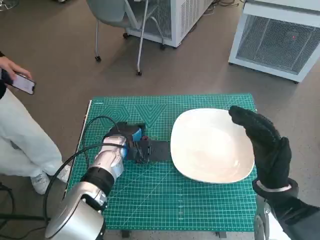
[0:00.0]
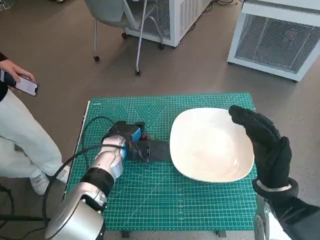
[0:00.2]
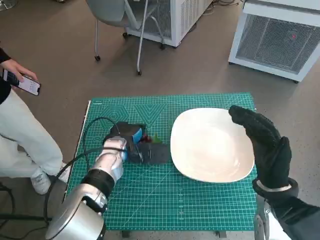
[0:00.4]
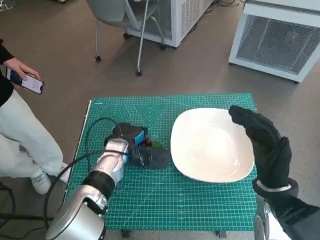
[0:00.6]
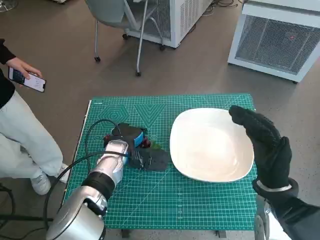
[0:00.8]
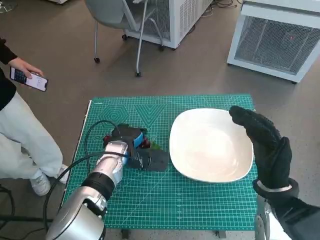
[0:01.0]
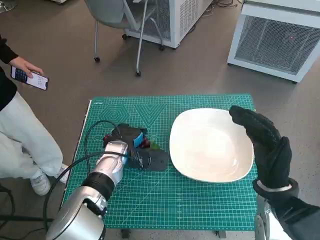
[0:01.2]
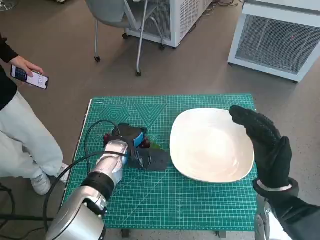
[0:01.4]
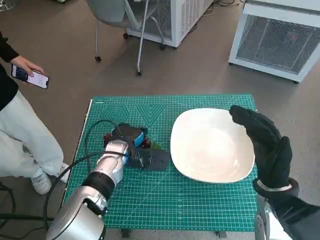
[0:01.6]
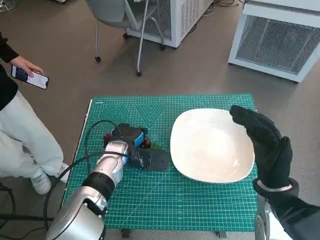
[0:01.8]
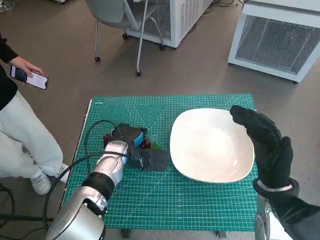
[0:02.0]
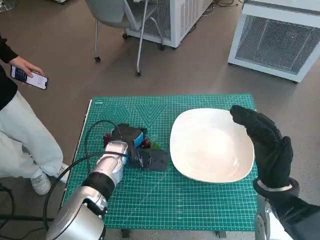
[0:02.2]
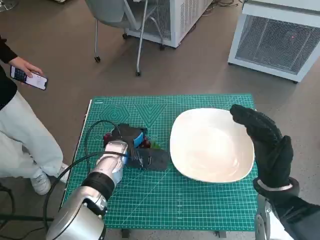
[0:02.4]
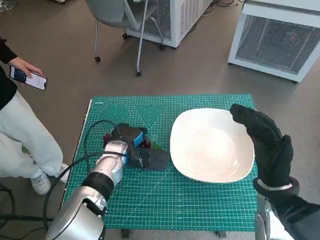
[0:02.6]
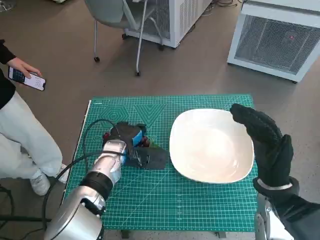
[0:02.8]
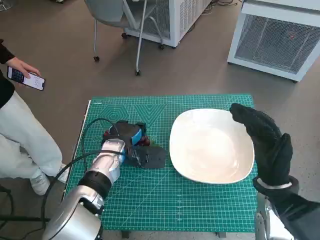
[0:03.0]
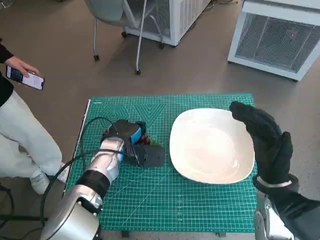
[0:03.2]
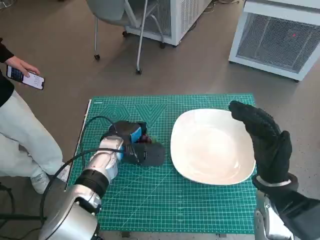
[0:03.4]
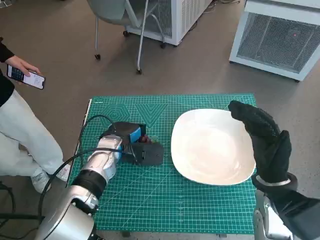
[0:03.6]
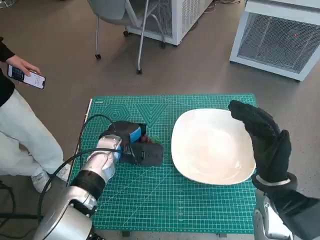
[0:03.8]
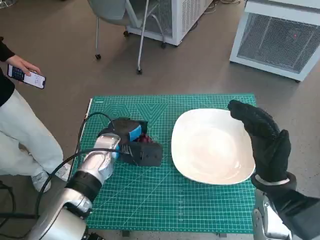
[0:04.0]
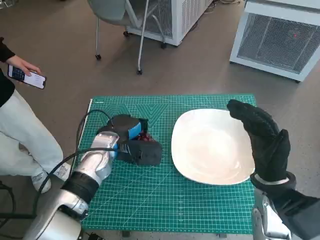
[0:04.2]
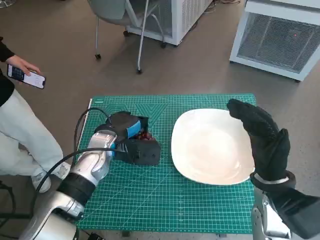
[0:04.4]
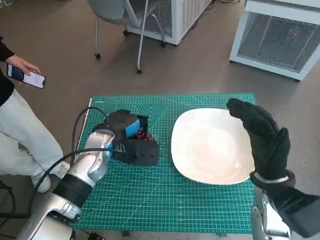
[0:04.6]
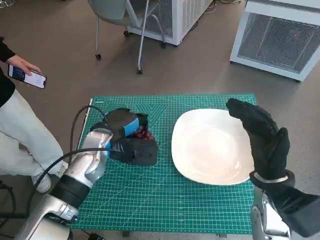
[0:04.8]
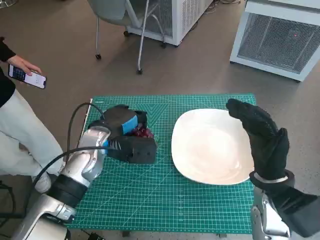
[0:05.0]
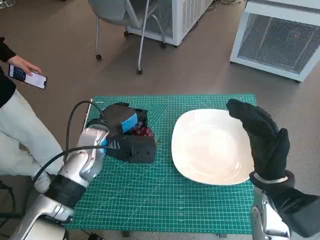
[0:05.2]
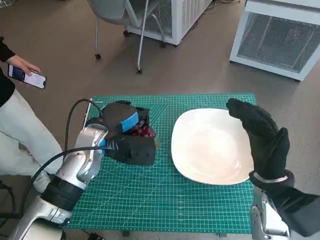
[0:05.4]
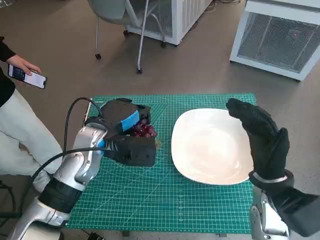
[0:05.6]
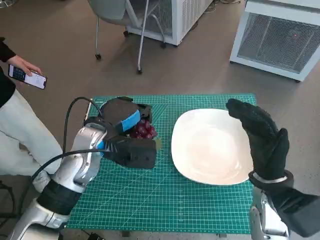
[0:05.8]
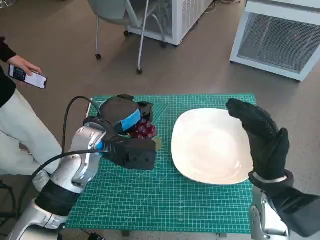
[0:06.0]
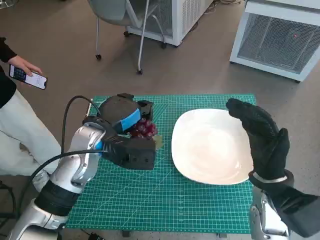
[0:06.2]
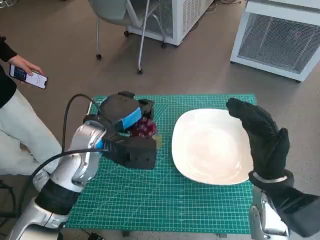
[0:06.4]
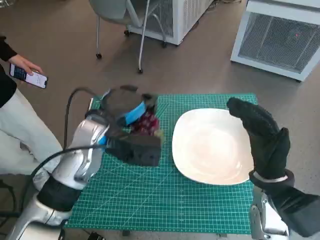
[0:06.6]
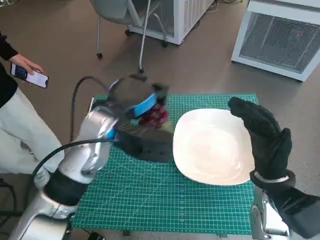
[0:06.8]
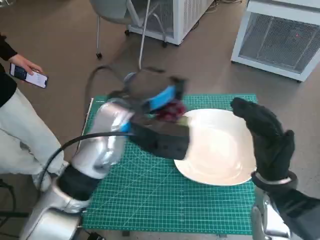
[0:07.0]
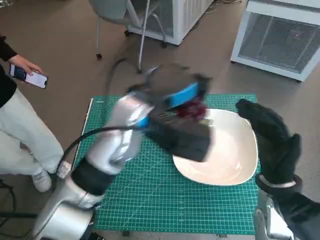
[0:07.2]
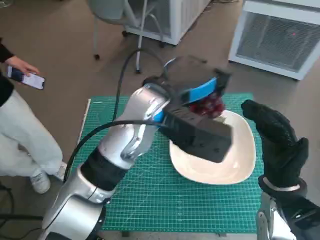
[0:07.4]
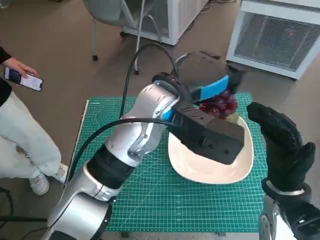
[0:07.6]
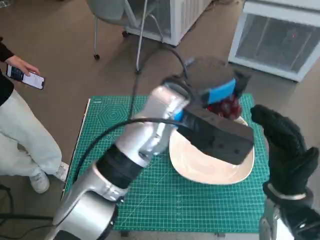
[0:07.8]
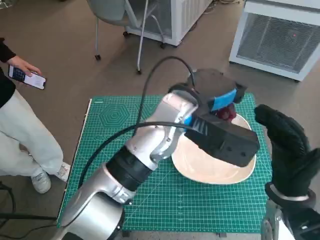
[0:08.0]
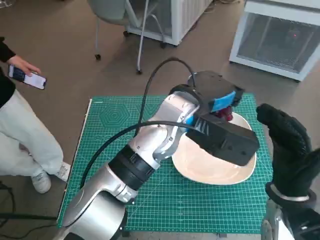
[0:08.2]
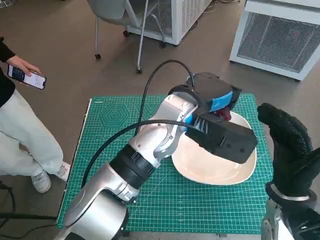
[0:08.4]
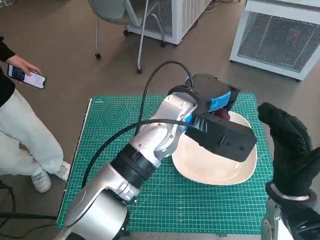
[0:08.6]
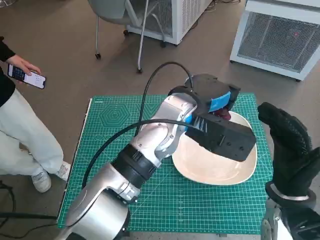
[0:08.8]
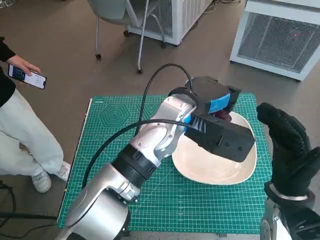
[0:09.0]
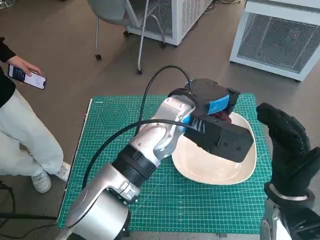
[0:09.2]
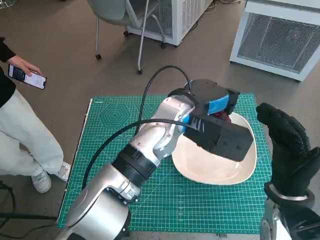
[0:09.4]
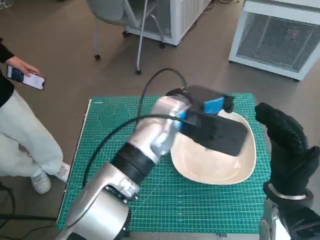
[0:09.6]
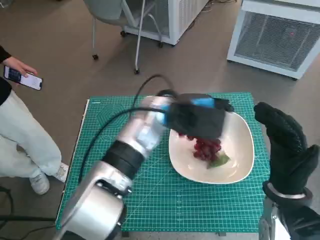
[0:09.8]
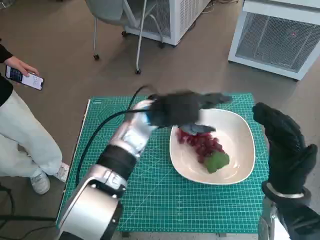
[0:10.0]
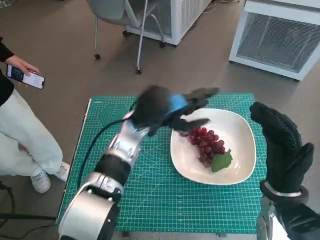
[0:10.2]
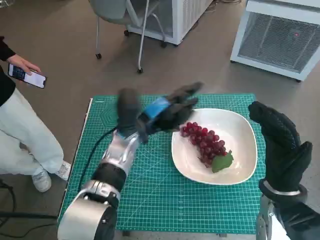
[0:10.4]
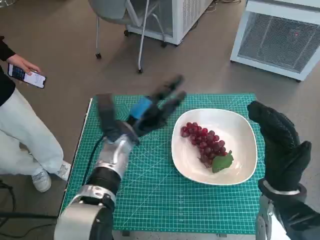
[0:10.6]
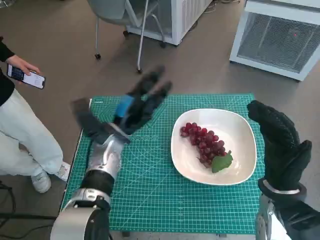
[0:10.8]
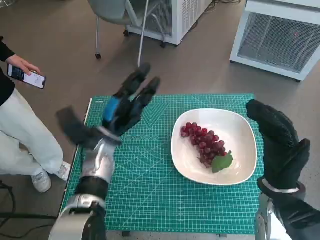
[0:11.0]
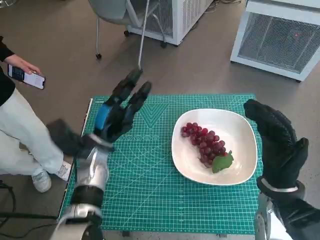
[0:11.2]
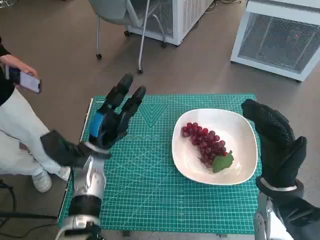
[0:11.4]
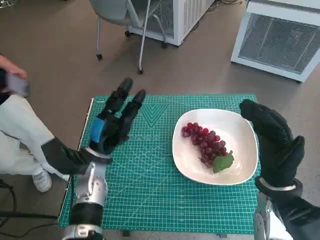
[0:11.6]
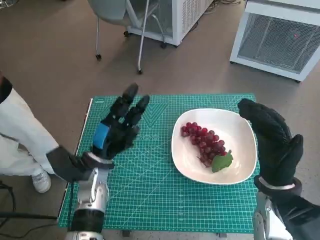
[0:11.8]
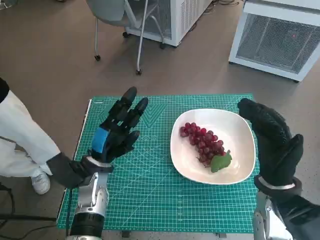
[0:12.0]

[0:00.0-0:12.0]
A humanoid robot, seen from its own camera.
Task of the whole recording: Pick up the grapes and put them on the plate.
Step, 0:02.0 to 0:09.8: Place the grapes in the plate with left hand.
0:00.0 to 0:01.6: The hands stay close to where they were, moving slightly.
0:01.6 to 0:03.0: The two hands keep their place.
0:03.0 to 0:04.4: The hands stay close to where they were, moving slightly.
0:04.4 to 0:06.0: The left hand heads upward, covering about 5 cm.
0:06.0 to 0:07.6: The left hand is displaced to the right and upward by roughly 15 cm.
0:07.6 to 0:09.0: The left hand ends up approximately 5 cm from where it was.
0:09.0 to 0:10.4: The left hand is displaced to the left and downward by about 15 cm.
0:10.4 to 0:12.0: The left hand is displaced to the left, backward and downward by roughly 10 cm.

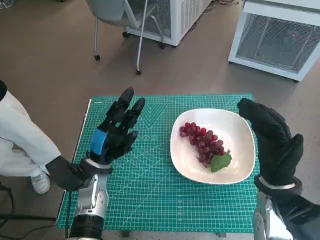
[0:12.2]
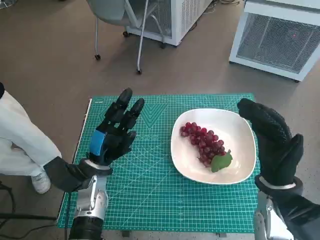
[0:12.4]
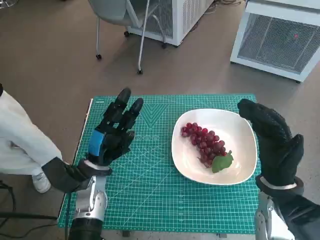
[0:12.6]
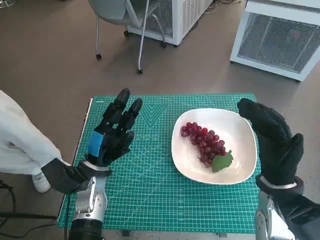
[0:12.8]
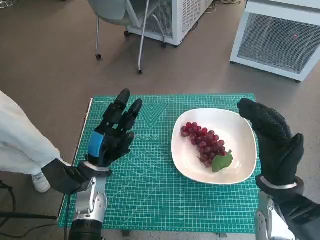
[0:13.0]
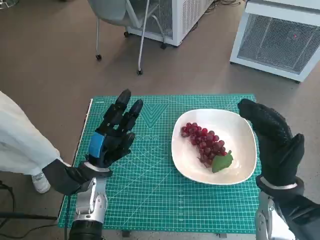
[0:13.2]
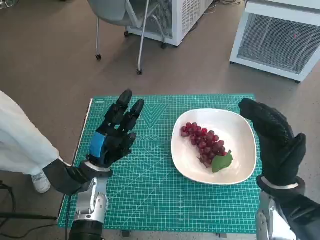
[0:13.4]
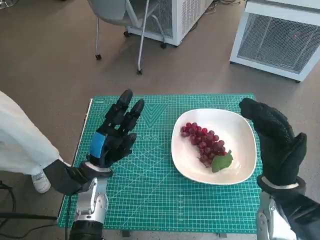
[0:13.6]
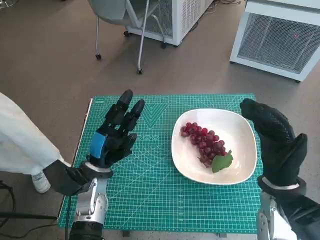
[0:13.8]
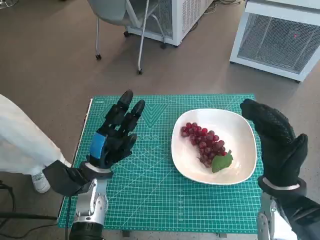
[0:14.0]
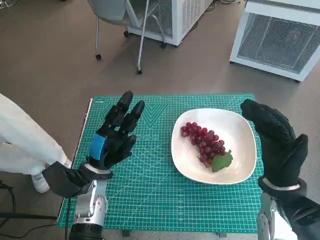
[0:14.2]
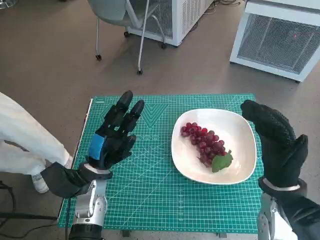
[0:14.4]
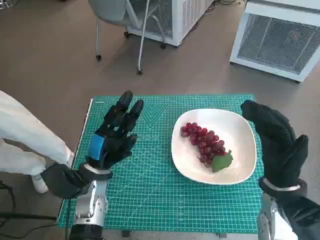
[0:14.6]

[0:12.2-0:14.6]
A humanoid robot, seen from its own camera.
Task of the whole recording: Pick up the grapes and put them on the plate.
0:12.2 to 0:14.6: The two hands keep their place.

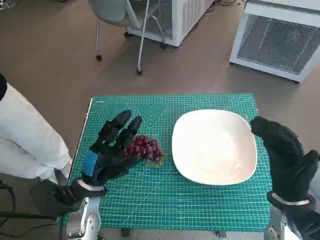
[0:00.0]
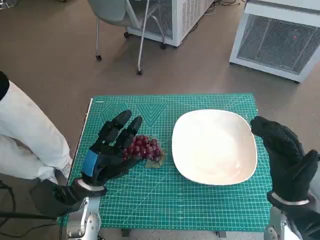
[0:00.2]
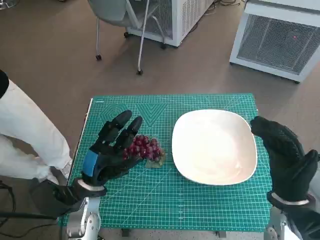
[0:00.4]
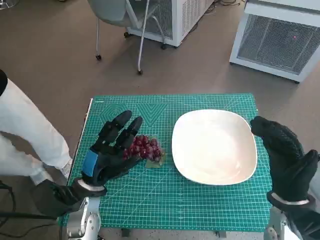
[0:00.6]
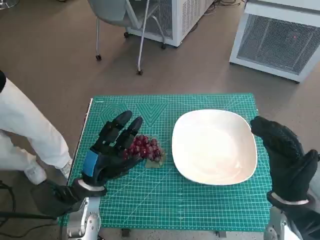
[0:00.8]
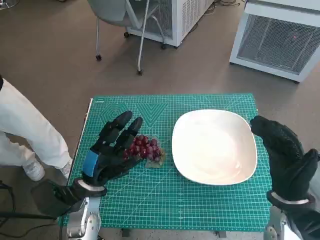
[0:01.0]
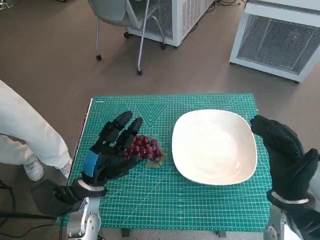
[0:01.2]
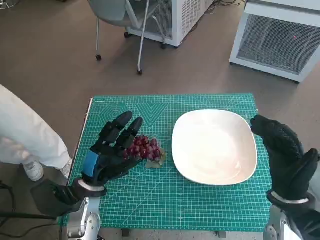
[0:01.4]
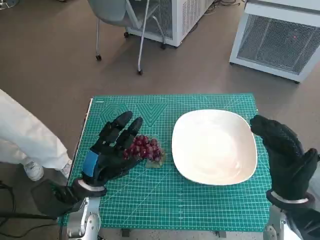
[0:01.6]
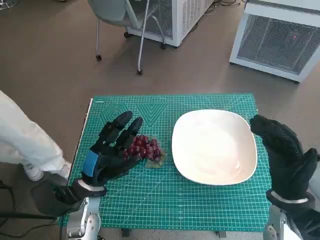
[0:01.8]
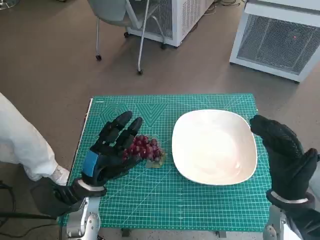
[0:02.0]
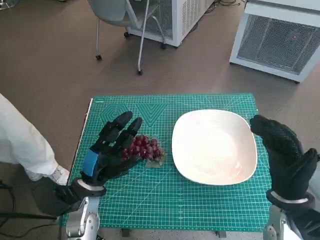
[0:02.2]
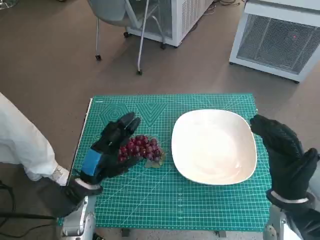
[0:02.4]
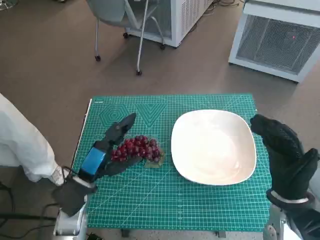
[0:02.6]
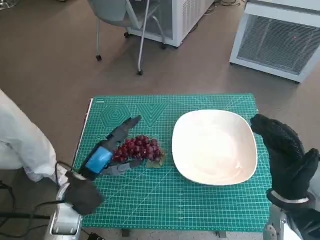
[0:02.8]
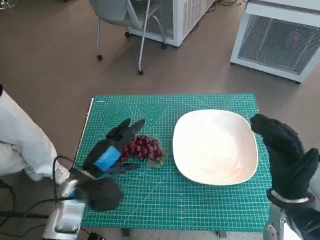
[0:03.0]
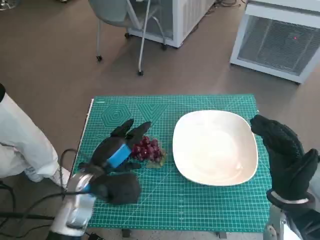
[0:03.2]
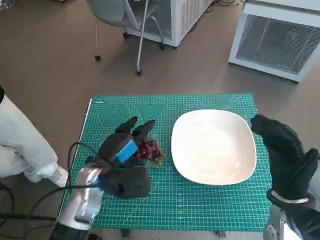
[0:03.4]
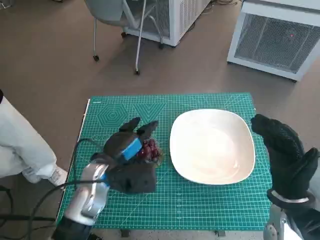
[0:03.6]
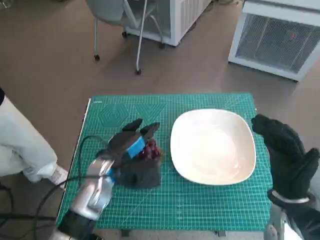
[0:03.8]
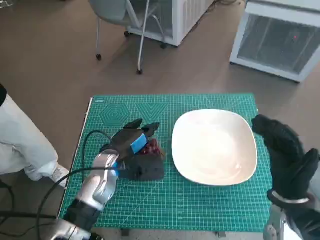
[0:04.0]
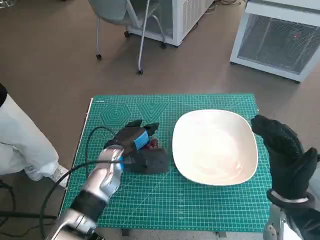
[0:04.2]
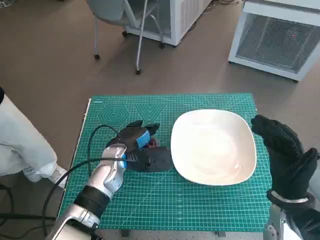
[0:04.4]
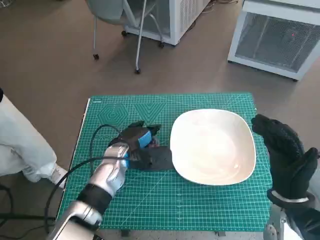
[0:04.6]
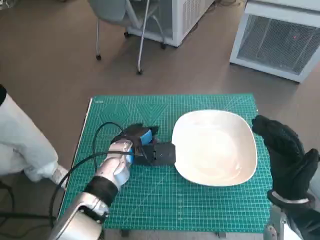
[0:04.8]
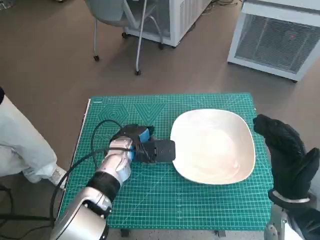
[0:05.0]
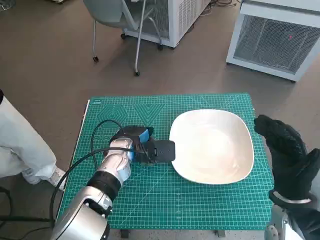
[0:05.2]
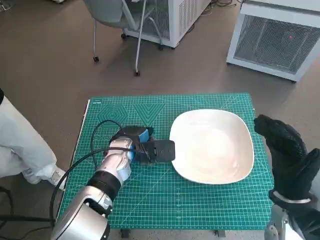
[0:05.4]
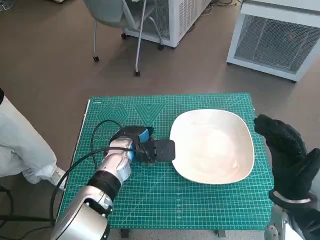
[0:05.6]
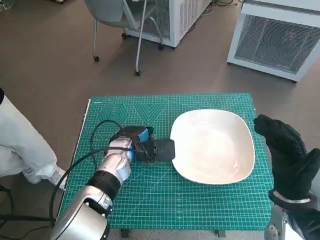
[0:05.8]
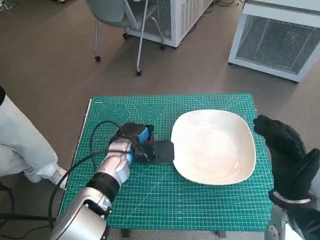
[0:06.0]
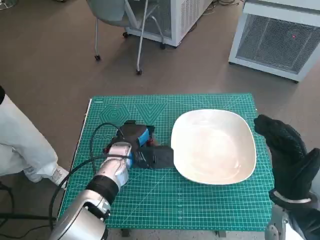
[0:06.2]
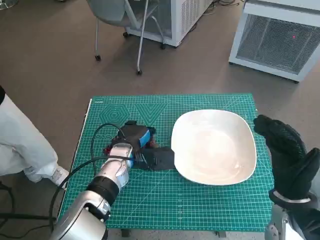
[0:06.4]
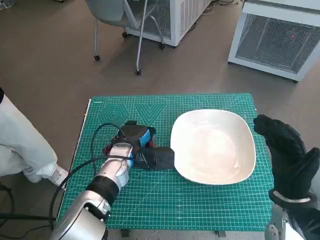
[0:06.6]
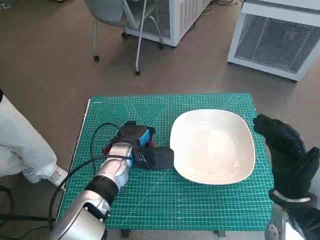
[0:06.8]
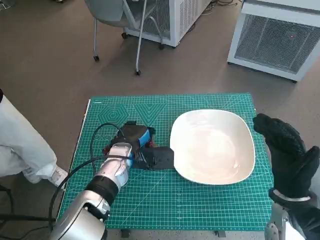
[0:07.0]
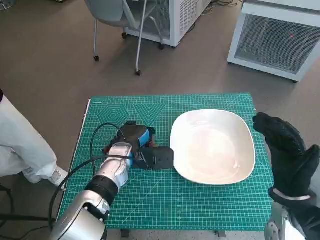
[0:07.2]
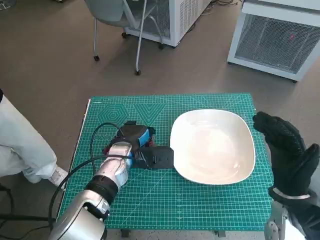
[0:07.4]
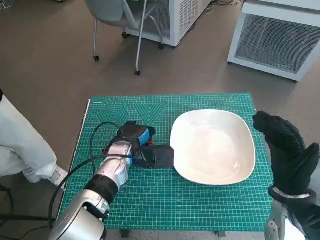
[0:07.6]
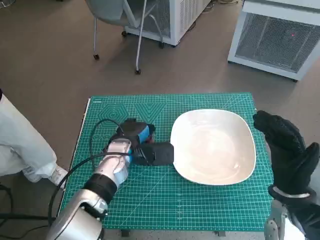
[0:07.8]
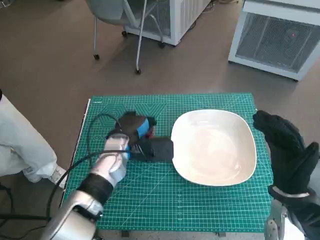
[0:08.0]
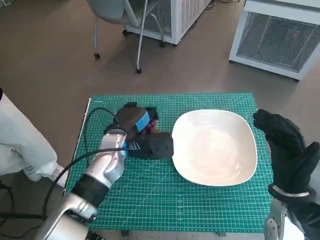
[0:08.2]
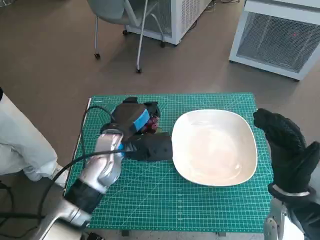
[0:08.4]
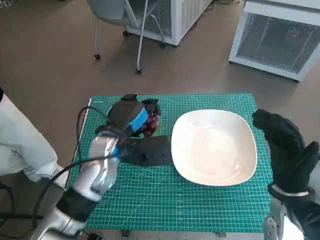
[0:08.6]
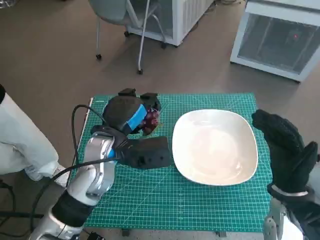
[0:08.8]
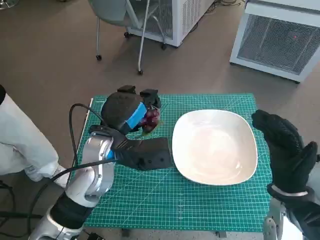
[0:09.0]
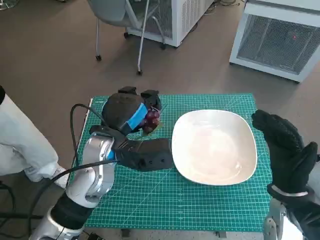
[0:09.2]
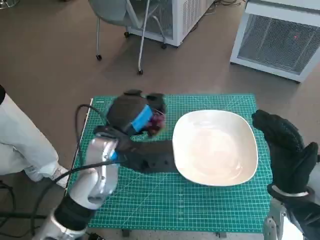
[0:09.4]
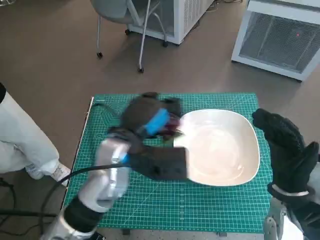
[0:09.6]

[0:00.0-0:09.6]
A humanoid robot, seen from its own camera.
Task of the whole recording: Pick up the grapes and put them on the plate.
Step, 0:00.0 to 0:07.0: Grasp the grapes with left hand.
0:03.2 to 0:04.8: The left hand moves forward and to the right, about 10 cm.
0:04.8 to 0:08.0: The hands make only small movements.
0:08.0 to 0:09.6: The left hand goes about 10 cm upward and backward.
